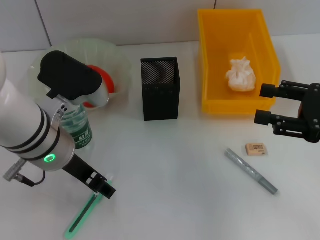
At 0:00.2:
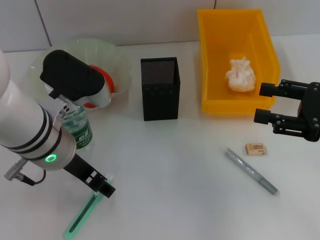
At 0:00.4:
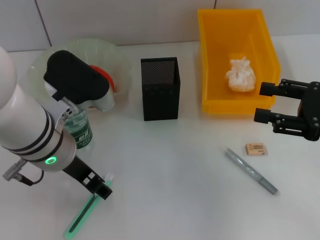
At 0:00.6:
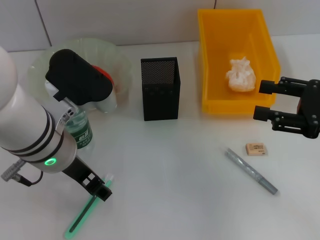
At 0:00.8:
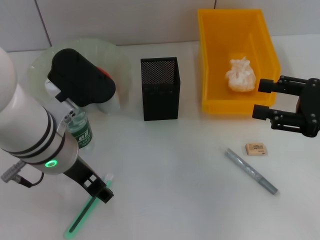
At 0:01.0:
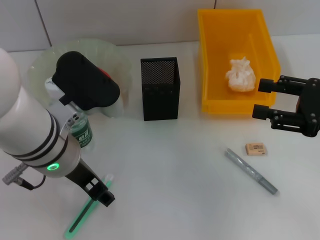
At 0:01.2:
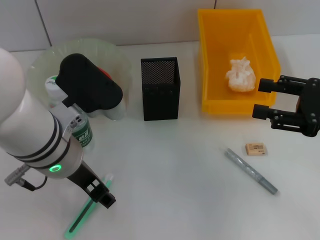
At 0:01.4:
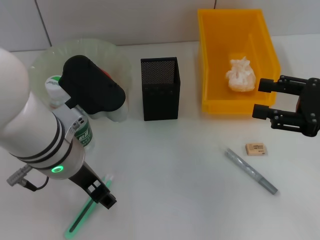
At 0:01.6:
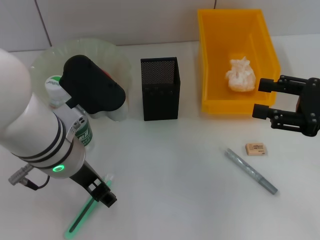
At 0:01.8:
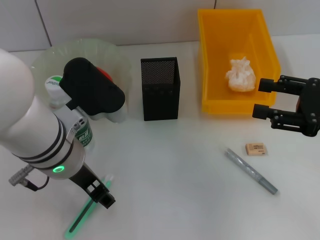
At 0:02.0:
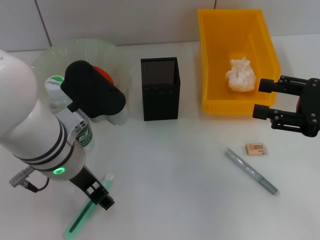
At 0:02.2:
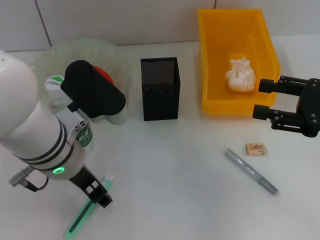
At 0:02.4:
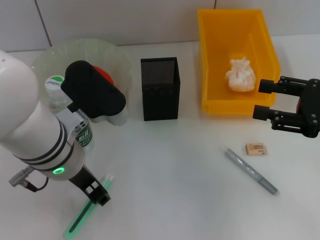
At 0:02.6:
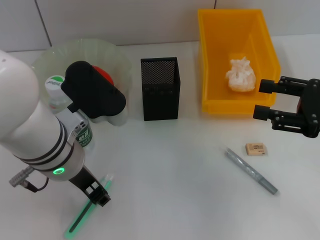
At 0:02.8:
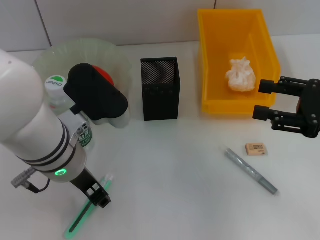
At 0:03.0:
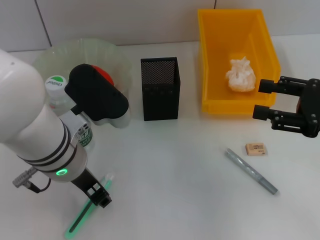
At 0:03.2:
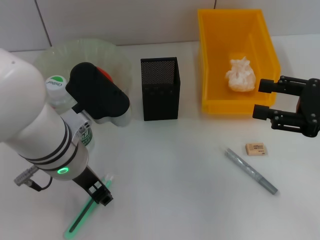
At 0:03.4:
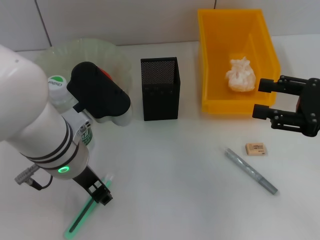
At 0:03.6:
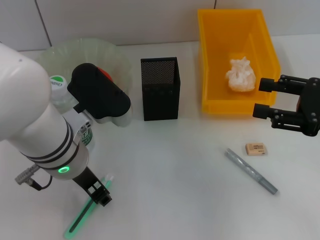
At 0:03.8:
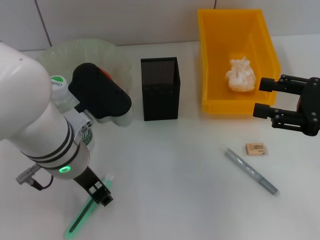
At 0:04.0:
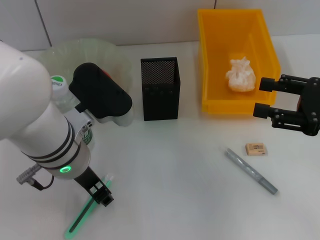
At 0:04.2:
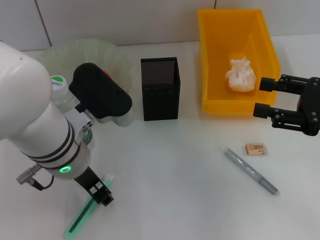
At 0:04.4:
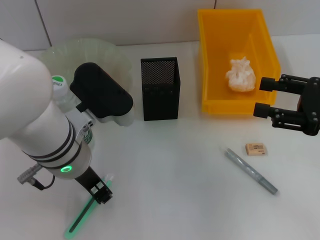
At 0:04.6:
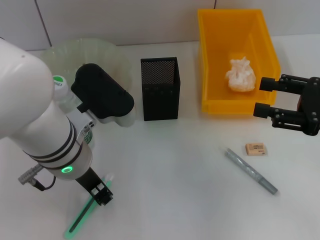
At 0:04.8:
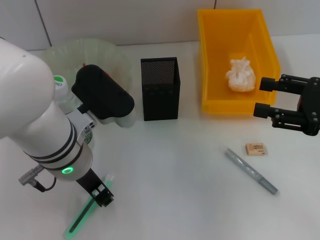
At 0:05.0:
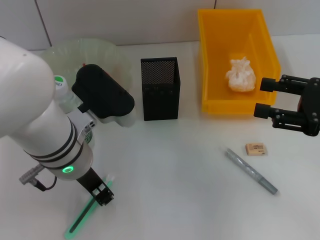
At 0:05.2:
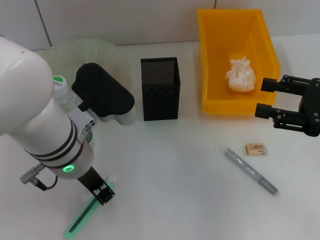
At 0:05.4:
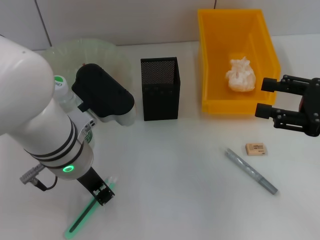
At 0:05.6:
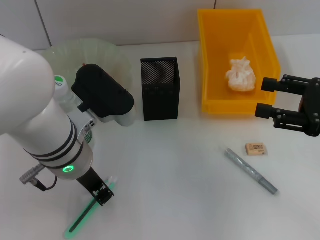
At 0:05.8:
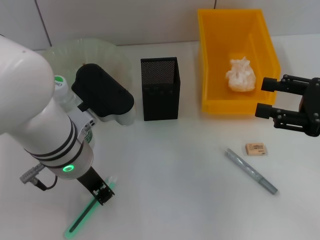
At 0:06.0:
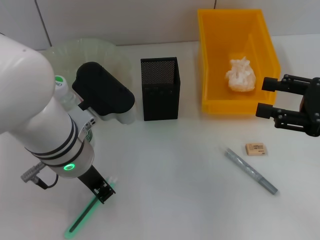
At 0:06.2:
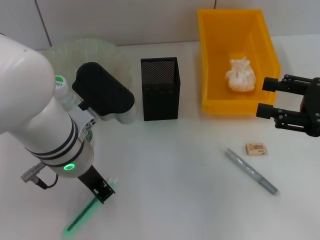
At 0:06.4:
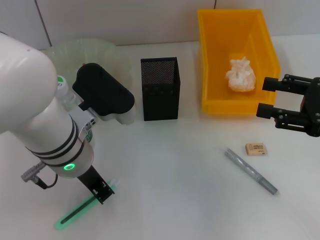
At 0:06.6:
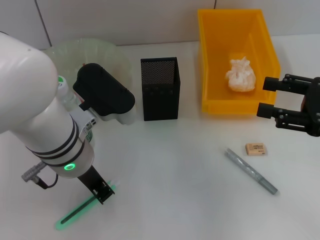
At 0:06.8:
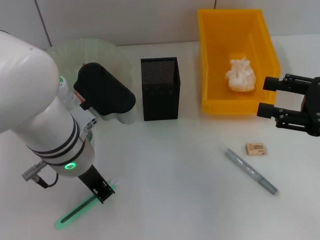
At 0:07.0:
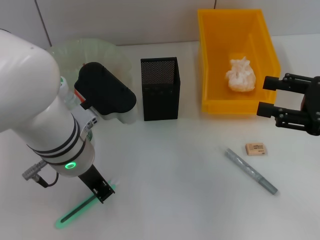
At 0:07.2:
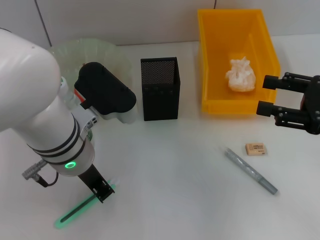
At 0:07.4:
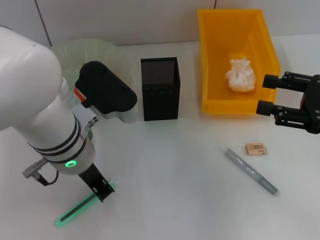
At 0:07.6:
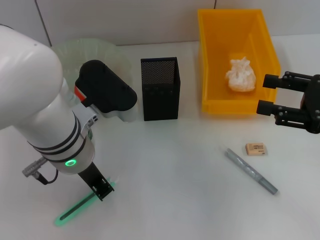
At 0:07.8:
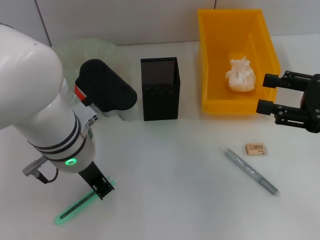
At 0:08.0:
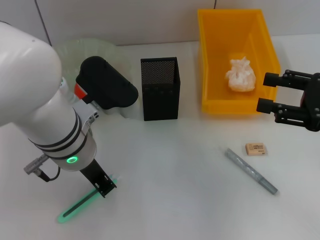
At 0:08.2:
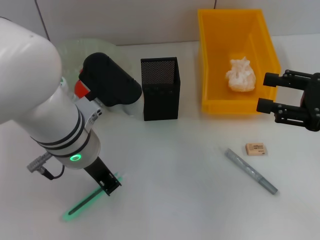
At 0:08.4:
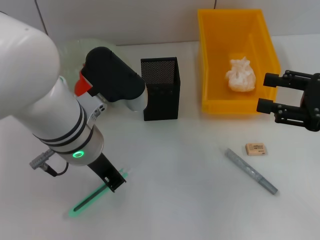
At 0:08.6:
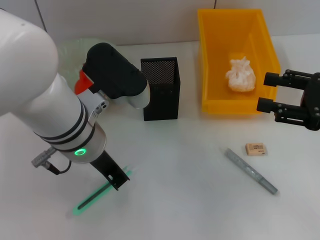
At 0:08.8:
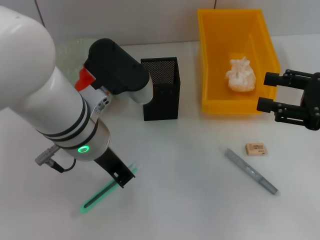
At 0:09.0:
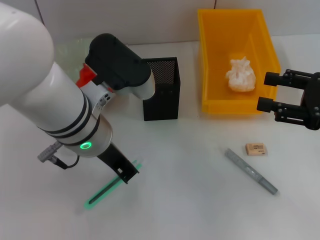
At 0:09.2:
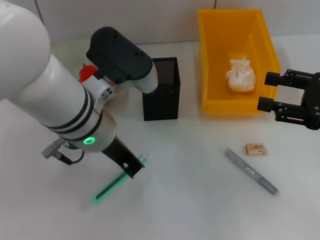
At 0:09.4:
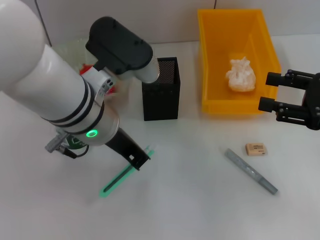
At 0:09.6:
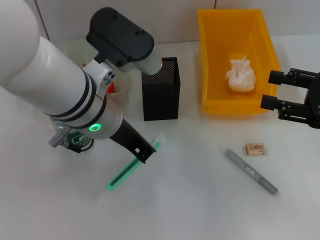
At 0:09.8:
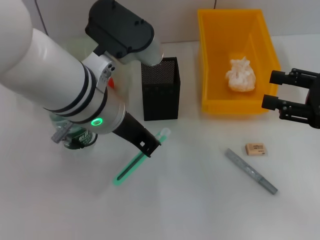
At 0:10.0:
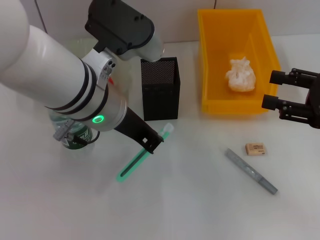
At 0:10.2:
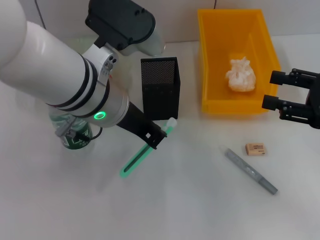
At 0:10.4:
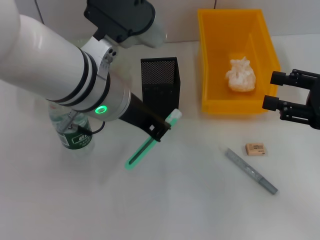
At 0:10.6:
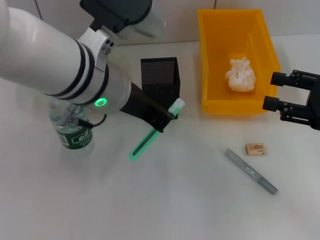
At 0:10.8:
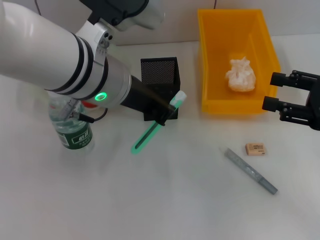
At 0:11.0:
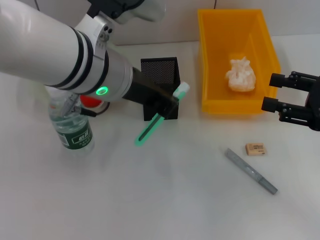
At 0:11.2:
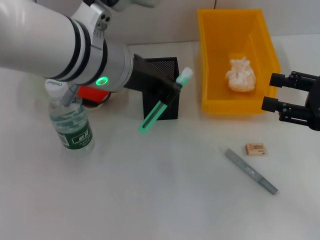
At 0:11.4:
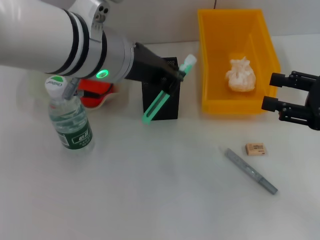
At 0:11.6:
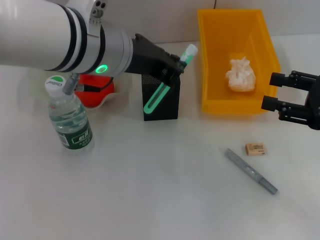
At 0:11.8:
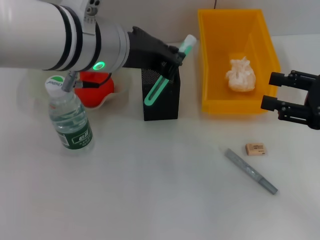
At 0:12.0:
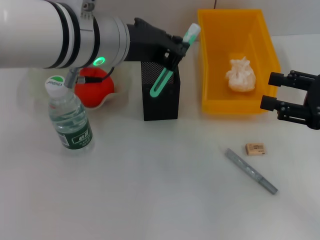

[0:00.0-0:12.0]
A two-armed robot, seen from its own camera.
Step, 0:00.0 to 0:07.2: Grab the blue utility knife with the left hand.
0:00.0 to 0:01.6: The grippers move only a little.
0:01.6 to 0:03.0: Both grippers stay about where they are.
0:03.0 to 0:04.4: Neither gripper changes place.
0:04.4 to 0:06.0: The left gripper closes.
0:06.0 to 0:07.6: Neither gripper changes place.
0:07.6 to 0:09.0: The grippers move only a little.

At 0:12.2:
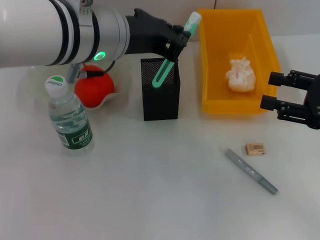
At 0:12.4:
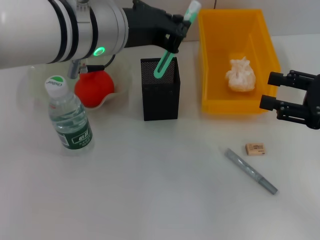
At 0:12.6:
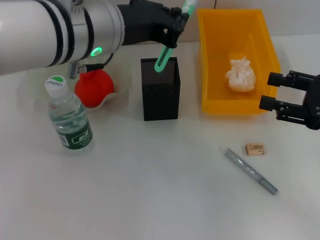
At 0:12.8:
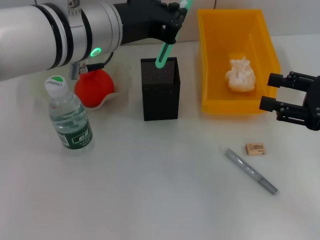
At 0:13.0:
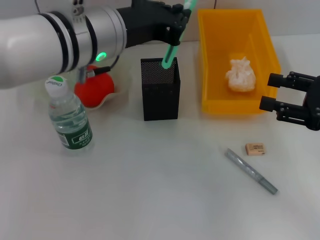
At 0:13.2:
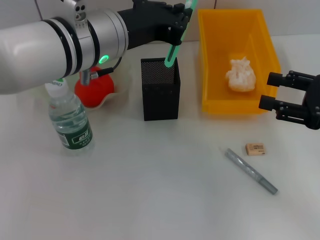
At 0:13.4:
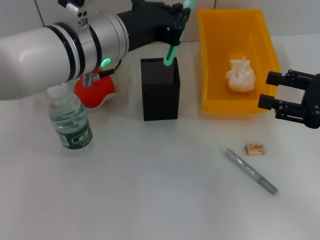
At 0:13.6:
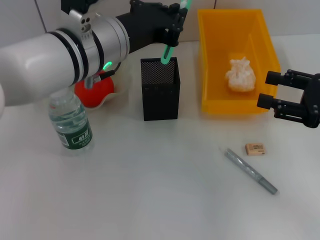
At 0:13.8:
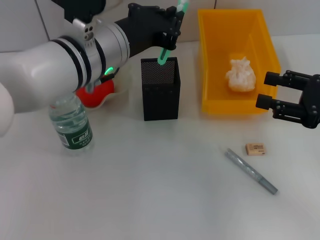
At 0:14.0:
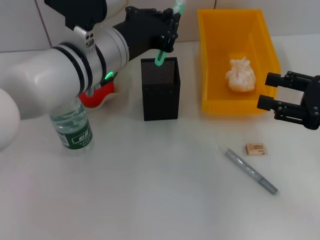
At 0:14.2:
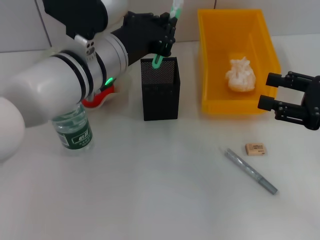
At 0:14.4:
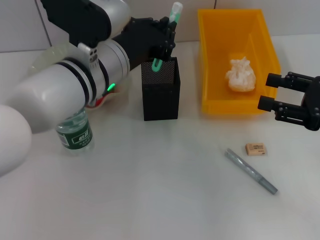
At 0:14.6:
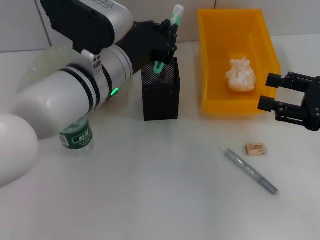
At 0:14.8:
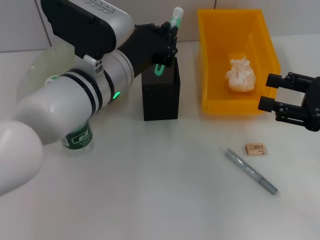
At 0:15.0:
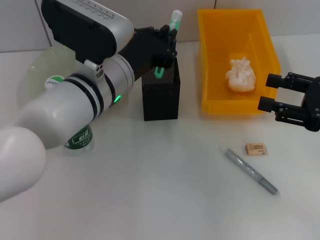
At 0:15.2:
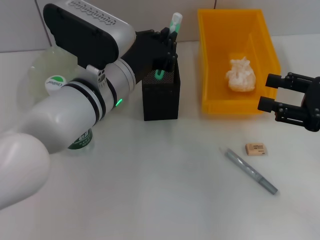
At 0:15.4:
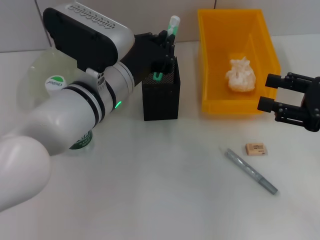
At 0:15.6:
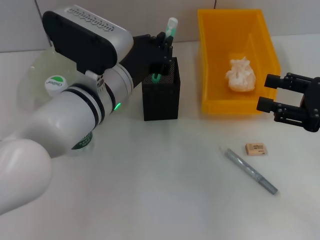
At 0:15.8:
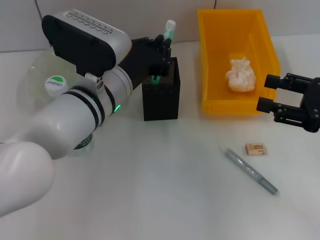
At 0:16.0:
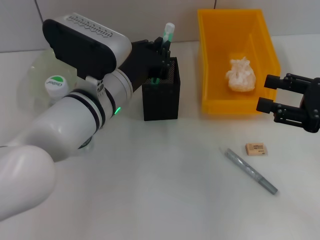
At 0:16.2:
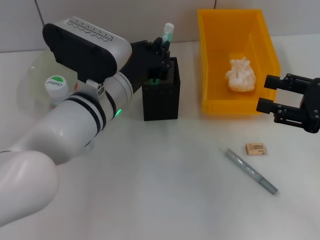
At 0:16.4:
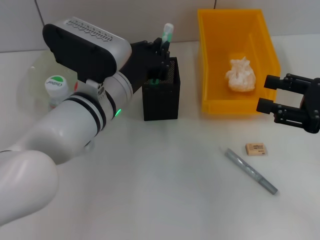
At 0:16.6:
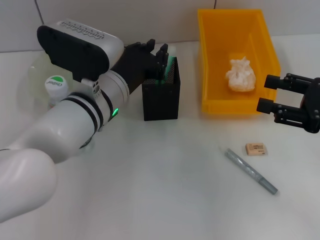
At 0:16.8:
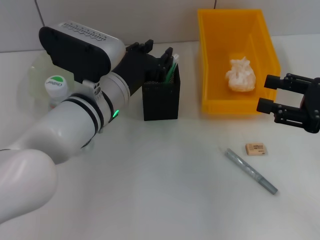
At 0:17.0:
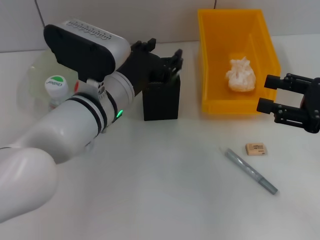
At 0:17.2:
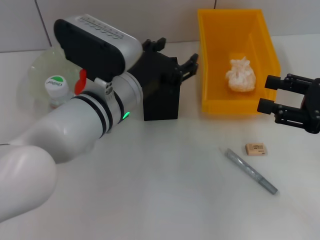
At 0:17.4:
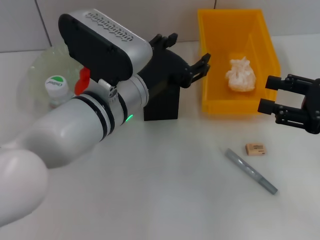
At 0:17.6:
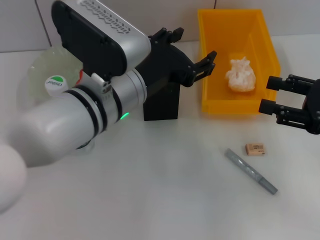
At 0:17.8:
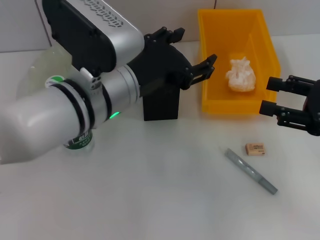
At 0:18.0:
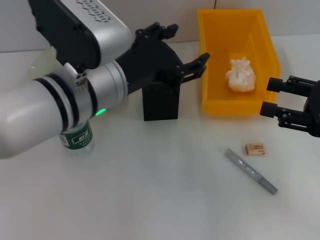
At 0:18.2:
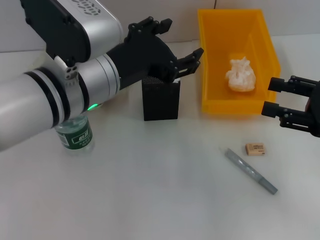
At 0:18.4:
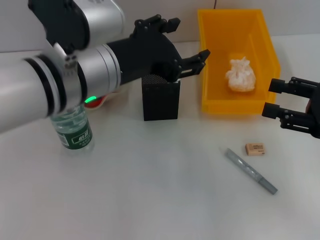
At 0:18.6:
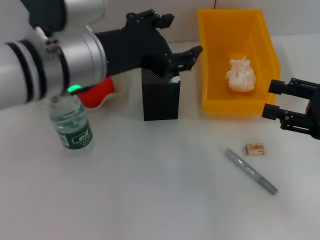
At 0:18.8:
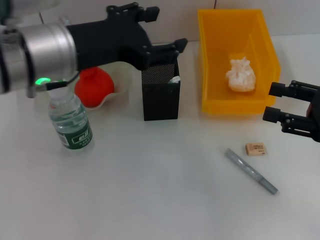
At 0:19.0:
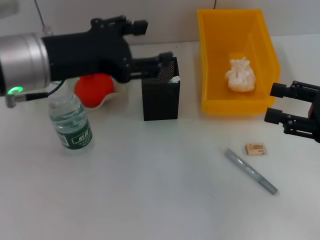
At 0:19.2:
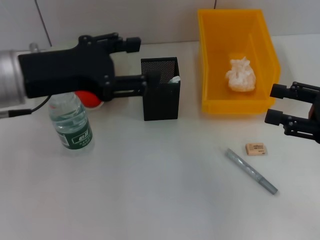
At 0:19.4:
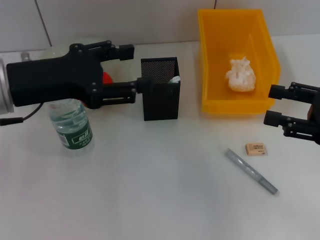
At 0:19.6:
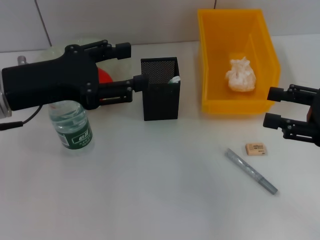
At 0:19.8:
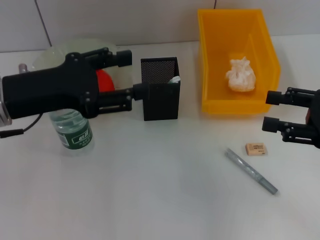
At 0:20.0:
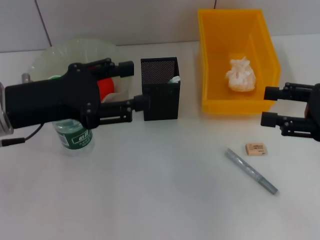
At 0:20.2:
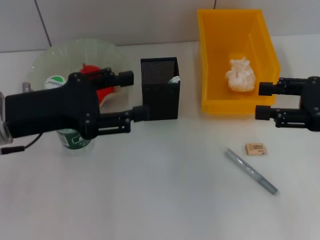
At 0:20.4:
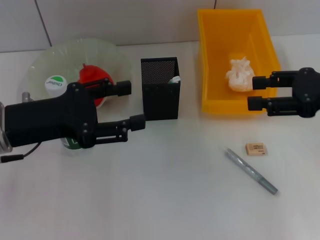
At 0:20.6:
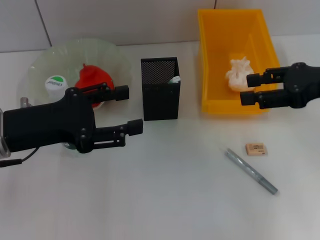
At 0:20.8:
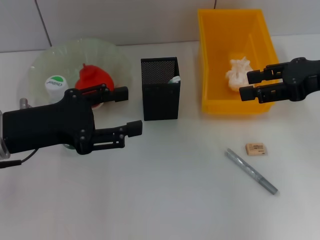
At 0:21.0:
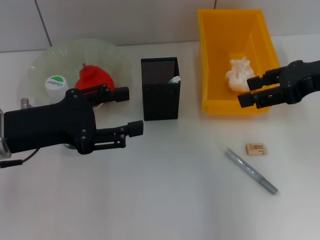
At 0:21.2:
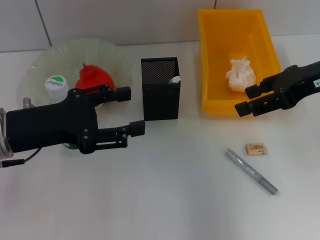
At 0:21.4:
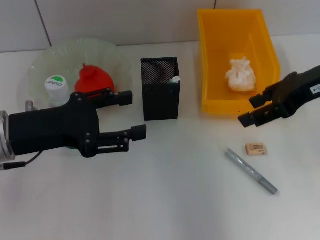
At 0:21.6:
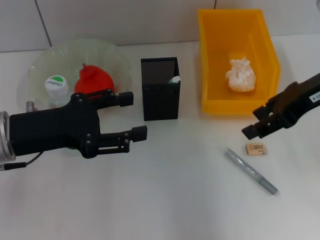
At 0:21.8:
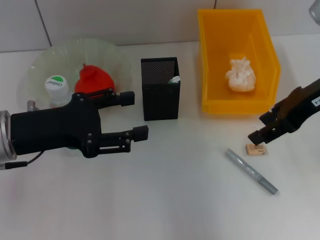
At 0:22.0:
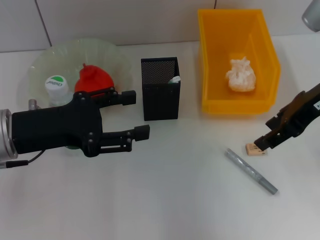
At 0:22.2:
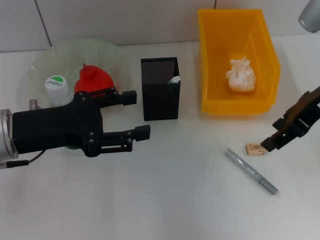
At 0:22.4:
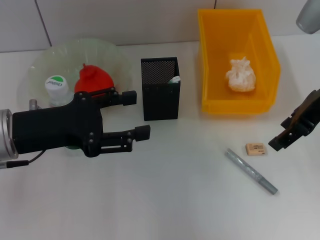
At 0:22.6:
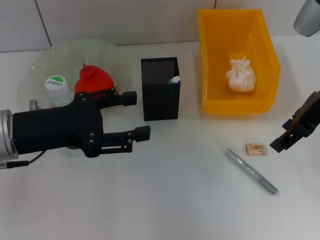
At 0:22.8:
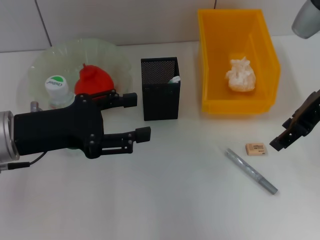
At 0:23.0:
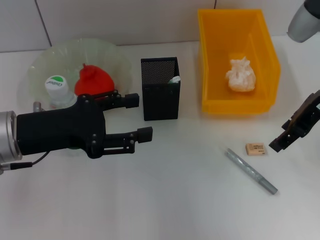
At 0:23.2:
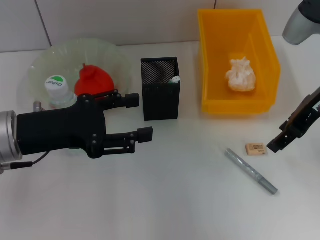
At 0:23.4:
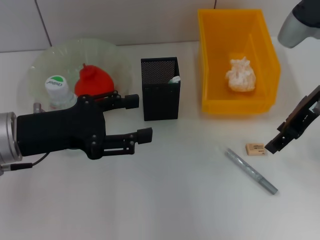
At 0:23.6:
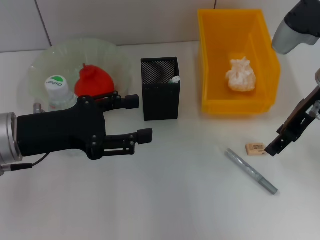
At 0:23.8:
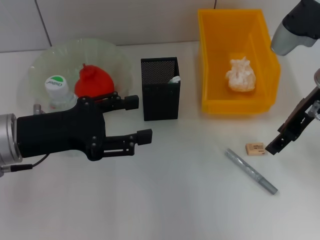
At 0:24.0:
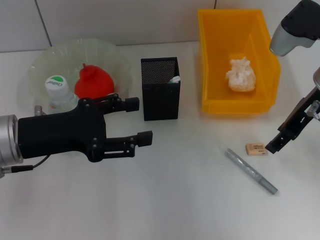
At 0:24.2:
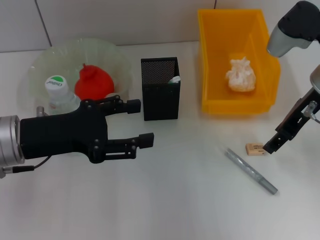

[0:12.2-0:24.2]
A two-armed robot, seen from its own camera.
Step, 0:12.2 to 0:16.6: Place the blue utility knife into the pen holder with the left hand.
0:12.2 to 0:13.8: The left gripper goes approximately 5 cm downward.
0:13.8 to 0:15.2: The left gripper moves roughly 5 cm.
0:15.2 to 0:16.6: The grippers make only small movements.
0:16.6 to 0:18.2: The left gripper heads upward, covering roughly 10 cm, and opens up.
0:18.2 to 0:19.8: The left gripper heads to the left, covering approximately 10 cm.
0:19.8 to 0:21.2: The right gripper is displaced upward, forward and to the left by some 15 cm.
0:22.6 to 0:24.2: The right gripper shifts by approximately 5 cm.
